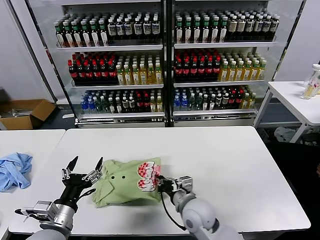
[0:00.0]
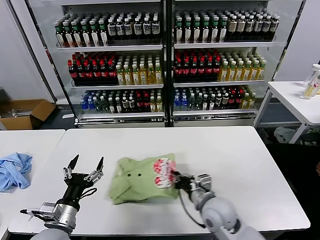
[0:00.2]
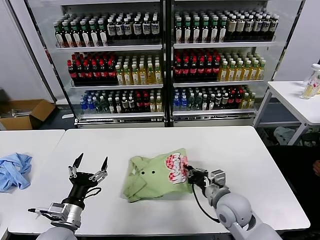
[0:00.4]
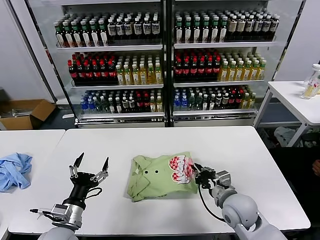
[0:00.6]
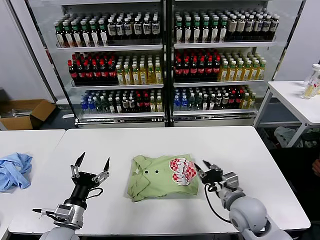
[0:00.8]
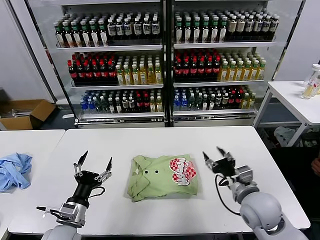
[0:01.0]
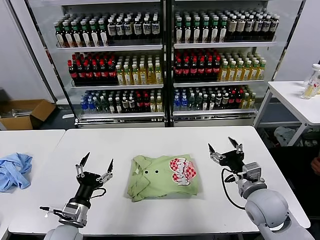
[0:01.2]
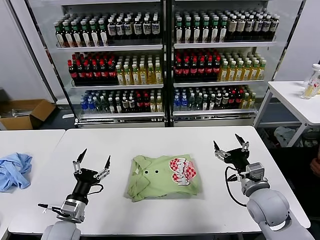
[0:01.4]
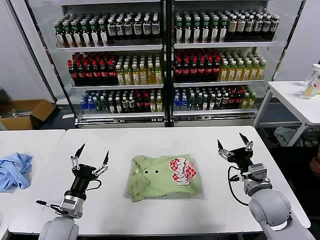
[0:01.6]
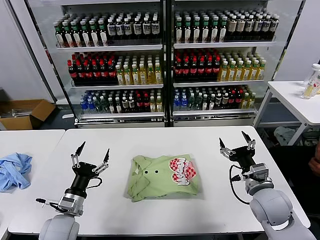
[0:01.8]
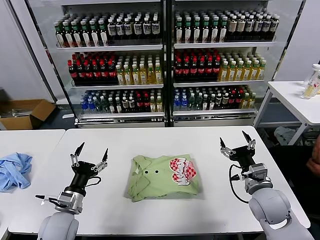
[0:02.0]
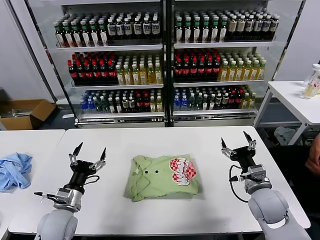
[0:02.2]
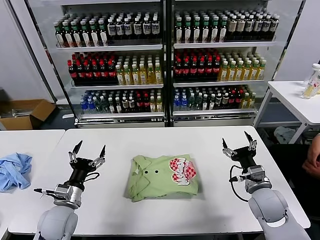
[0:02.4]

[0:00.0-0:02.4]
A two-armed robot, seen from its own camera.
Task of the whole recording: fold and organize the clothes.
0.0 to 1.2 s: The left gripper goes roughly 5 cm downward, while the right gripper heads to the right and upward, covering approximately 20 cm, and opens its fingers.
1.2 to 2.4 s: The right gripper changes place by approximately 5 cm. The left gripper changes place by some 5 cm.

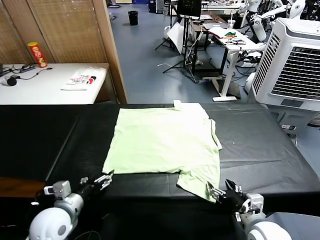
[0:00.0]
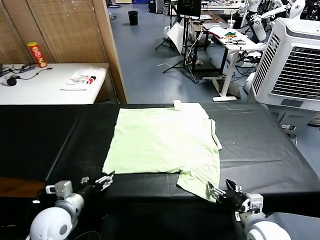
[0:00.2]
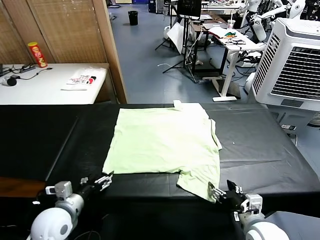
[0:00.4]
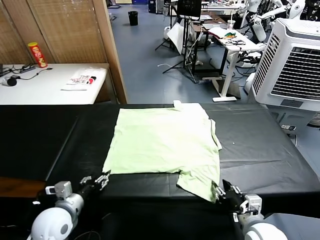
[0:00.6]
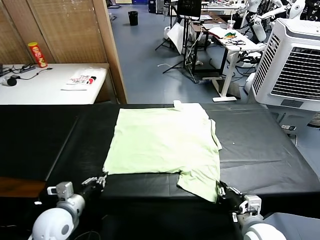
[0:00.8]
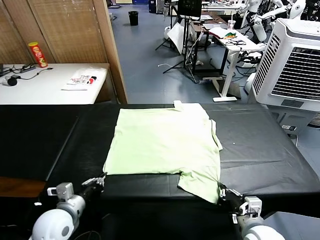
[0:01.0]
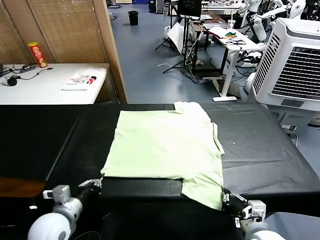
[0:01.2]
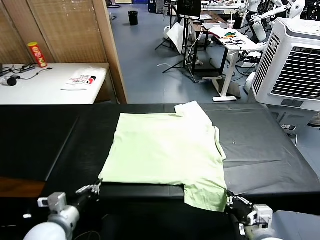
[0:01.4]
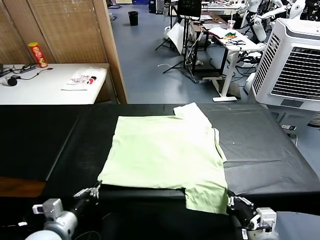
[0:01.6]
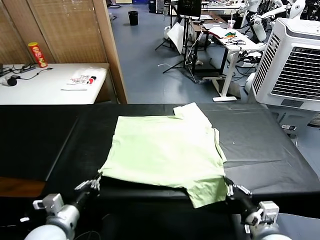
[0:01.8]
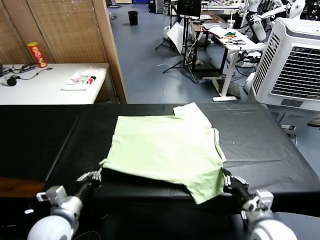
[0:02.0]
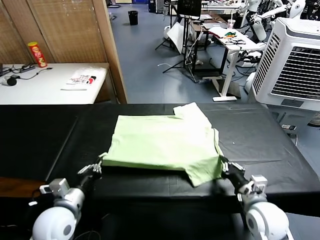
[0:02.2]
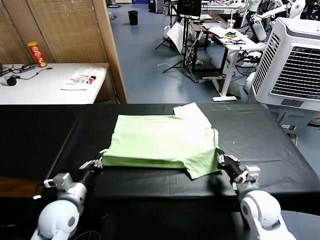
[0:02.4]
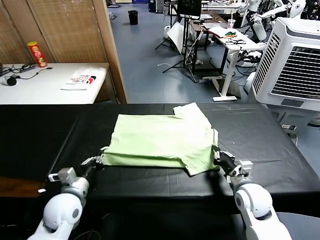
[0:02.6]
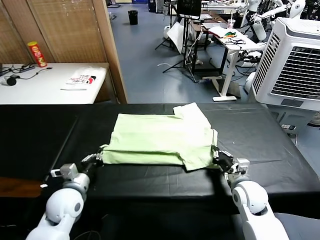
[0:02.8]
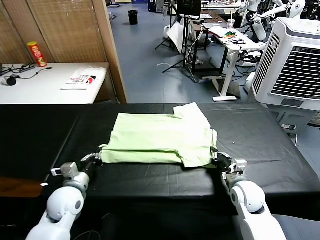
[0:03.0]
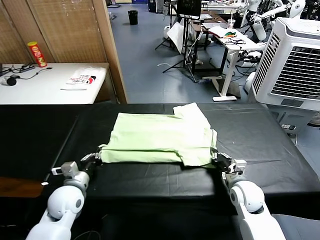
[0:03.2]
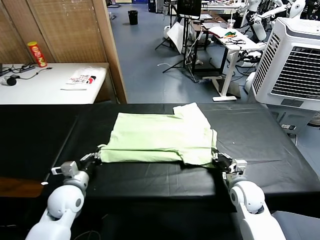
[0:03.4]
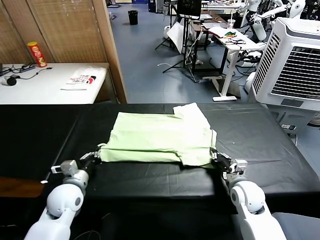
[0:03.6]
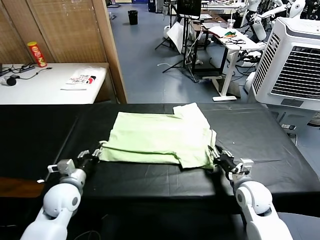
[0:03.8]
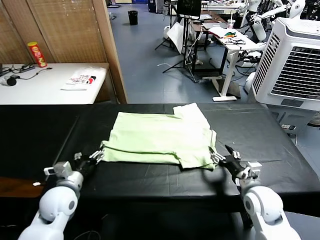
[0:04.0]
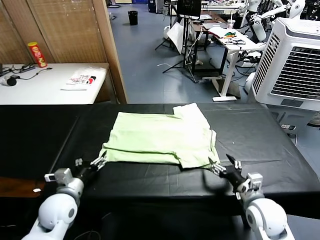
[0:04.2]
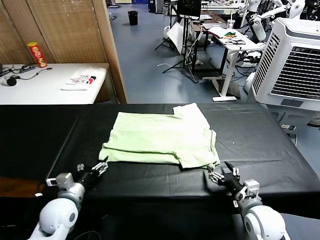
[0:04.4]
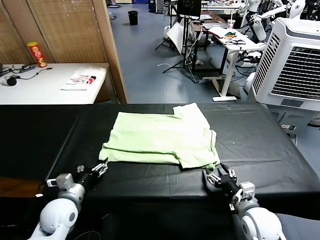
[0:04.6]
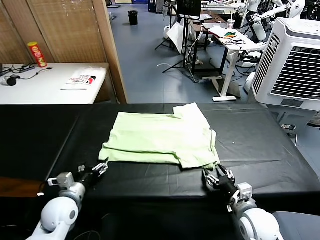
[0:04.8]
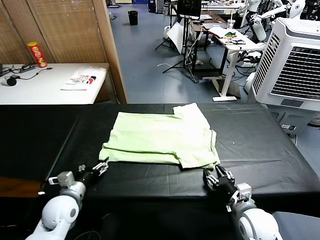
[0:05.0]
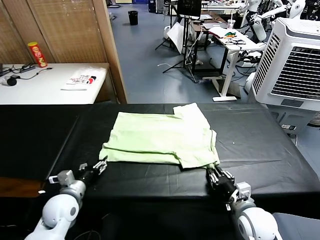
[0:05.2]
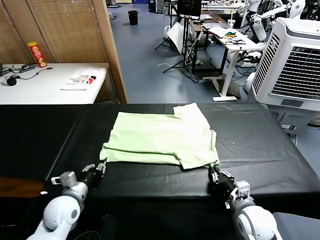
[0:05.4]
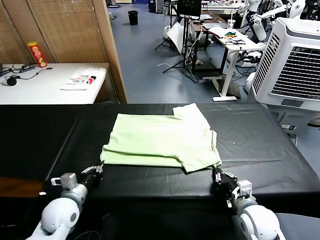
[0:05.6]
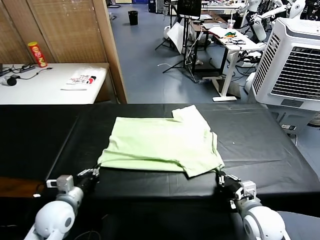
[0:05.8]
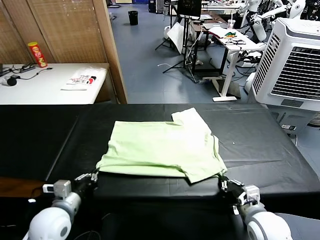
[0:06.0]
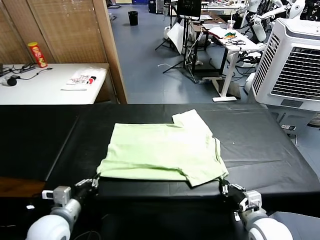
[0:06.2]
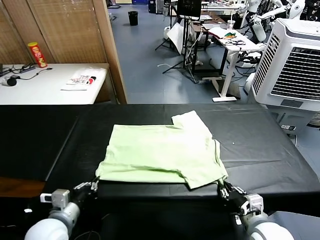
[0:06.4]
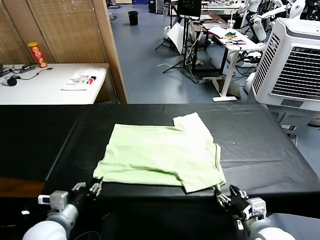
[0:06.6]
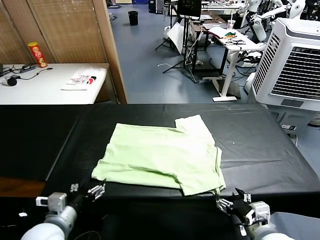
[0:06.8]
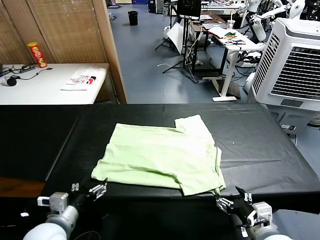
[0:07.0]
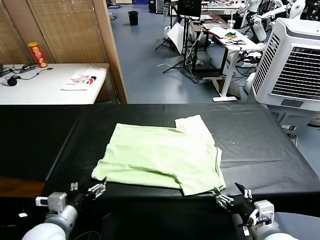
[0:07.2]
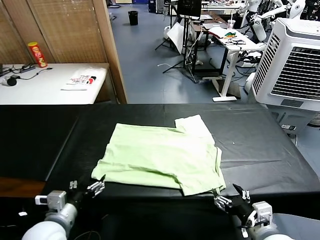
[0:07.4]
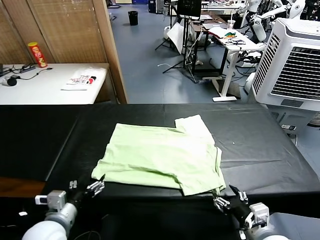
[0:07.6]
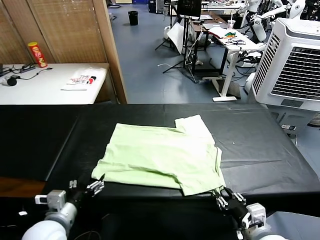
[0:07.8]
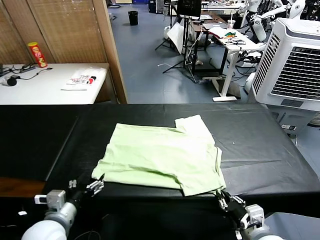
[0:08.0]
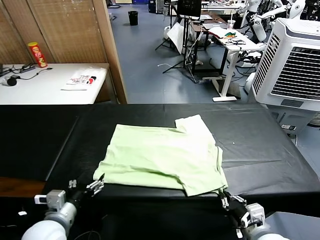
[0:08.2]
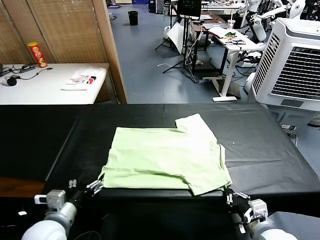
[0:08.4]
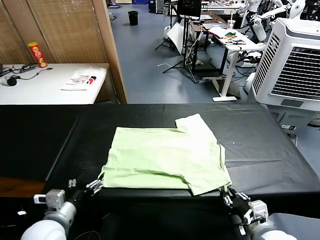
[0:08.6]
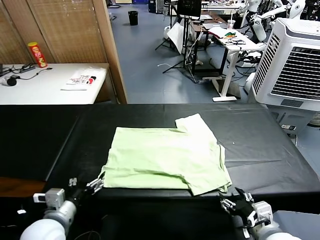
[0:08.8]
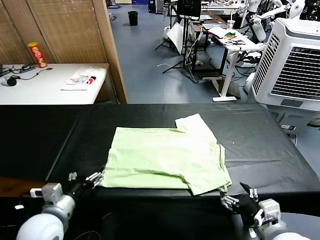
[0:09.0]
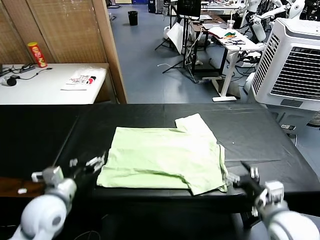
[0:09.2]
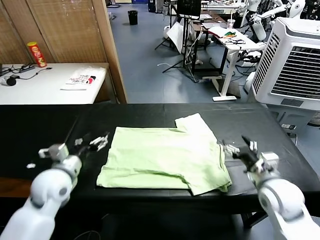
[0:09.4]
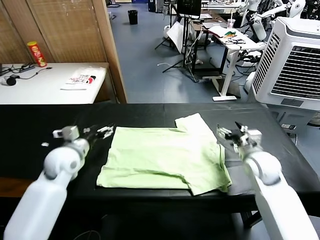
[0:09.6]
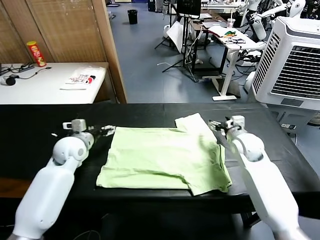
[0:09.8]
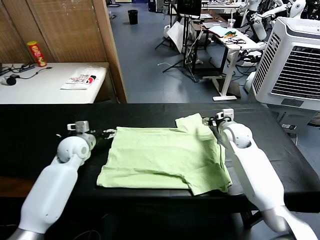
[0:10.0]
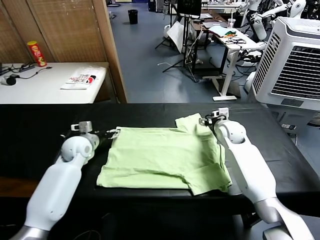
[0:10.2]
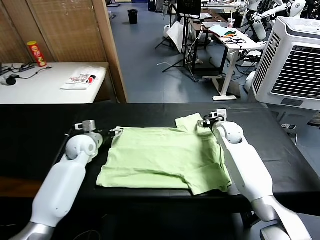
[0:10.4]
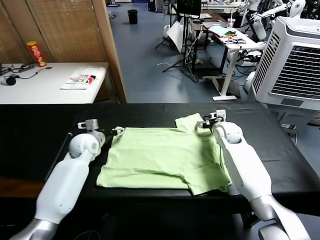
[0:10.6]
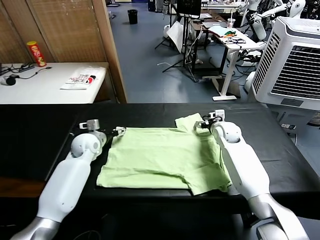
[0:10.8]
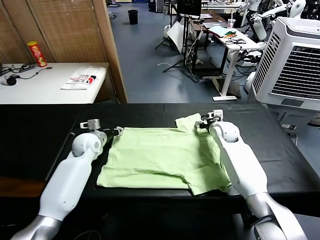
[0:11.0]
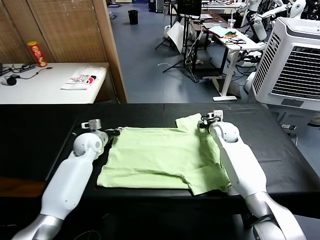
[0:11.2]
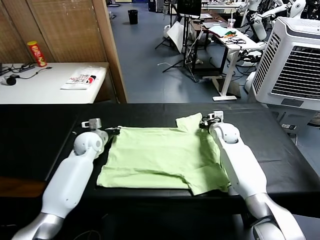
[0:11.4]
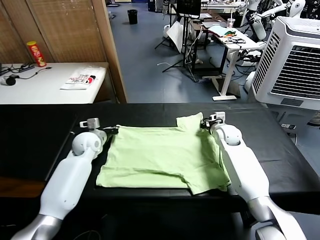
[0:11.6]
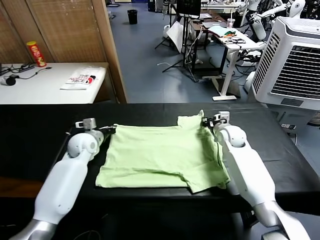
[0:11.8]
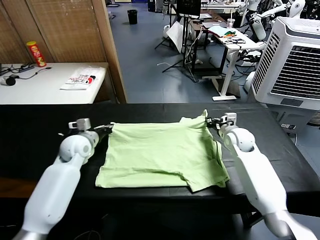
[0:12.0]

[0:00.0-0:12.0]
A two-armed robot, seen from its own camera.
Task of the whole recording: fold and organize the clothes.
Step, 0.0 to 1.0 s: use both grippers simultaneously to clamp the lower edge of the clothing fabric.
Step, 1.2 to 3.8 s: use both grippers to drag the lower edge of the fabric forward and fold it over the upper edge.
Step, 4.2 to 6.8 s: Drag the clothes downward with both gripper.
Step, 7.0 to 11.2 s: use both grippers simultaneously to clamp the upper edge of the clothing fabric.
1.6 to 3.0 s: The right gripper shifts roughly 20 cm forward and downward; the left gripper goes roughly 15 cm forward.
3.0 to 4.4 s: The left gripper opens up. The right gripper is displaced backward by about 10 cm, and opens.
4.4 to 6.0 s: The right gripper closes its fingers. The left gripper changes place by about 5 cm, and closes up.
6.0 to 7.6 s: The right gripper changes place by about 5 cm, and opens up; the left gripper opens its fingers.
7.6 to 9.0 s: The right gripper goes approximately 5 cm upward, and opens.
9.0 to 10.4 s: The grippers both shift forward by about 30 cm.
10.4 to 12.0 s: The left gripper closes up. Meanwhile the right gripper travels backward by some 5 cm, and closes its fingers.

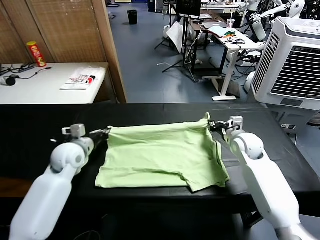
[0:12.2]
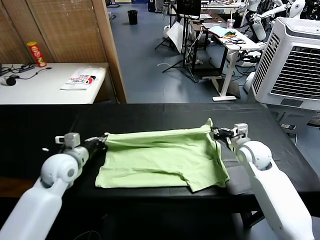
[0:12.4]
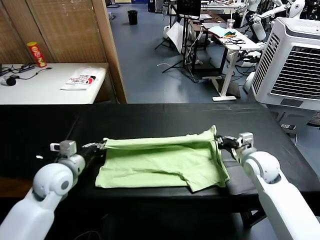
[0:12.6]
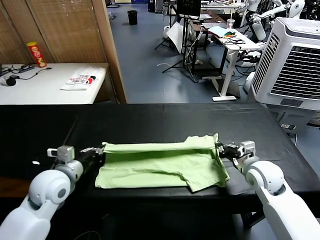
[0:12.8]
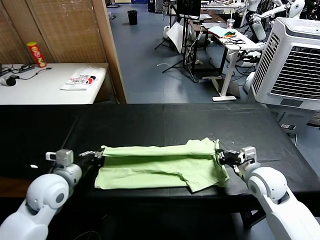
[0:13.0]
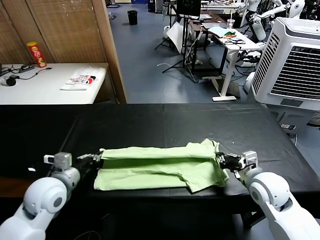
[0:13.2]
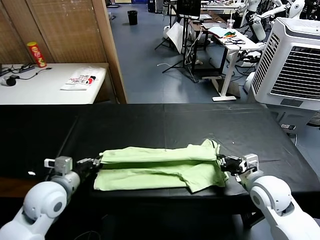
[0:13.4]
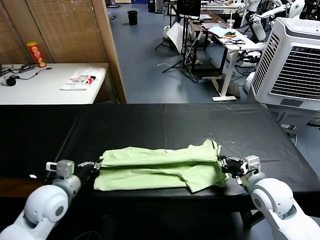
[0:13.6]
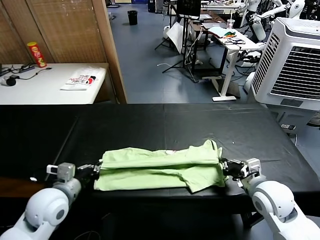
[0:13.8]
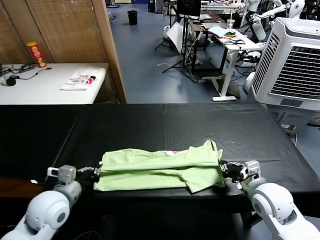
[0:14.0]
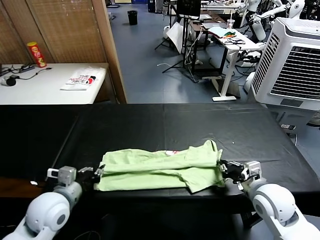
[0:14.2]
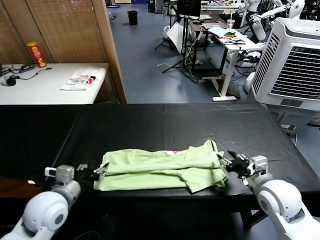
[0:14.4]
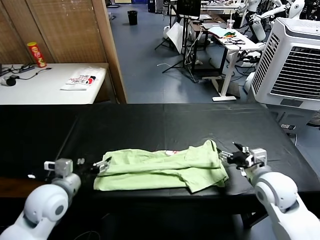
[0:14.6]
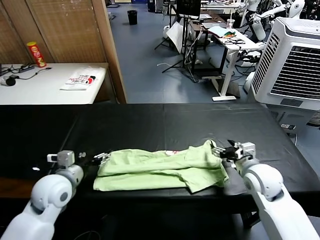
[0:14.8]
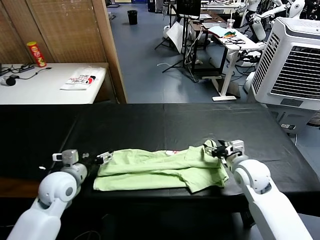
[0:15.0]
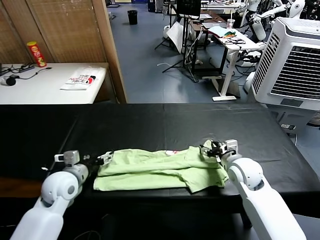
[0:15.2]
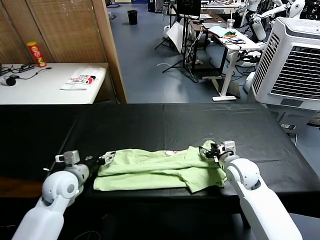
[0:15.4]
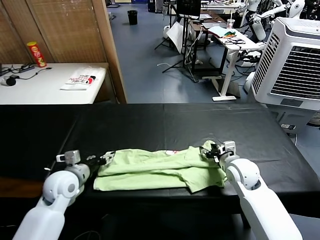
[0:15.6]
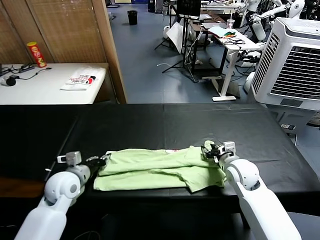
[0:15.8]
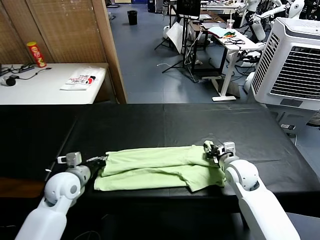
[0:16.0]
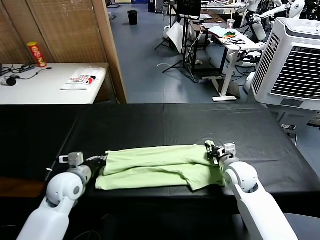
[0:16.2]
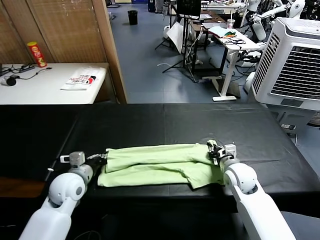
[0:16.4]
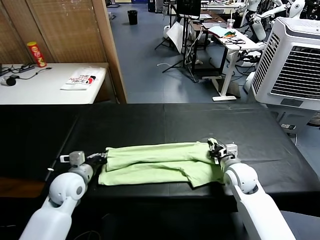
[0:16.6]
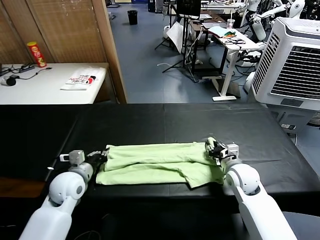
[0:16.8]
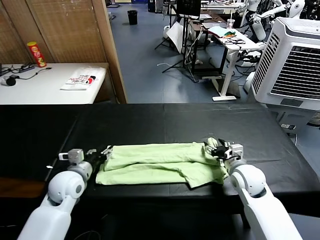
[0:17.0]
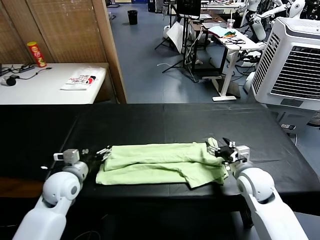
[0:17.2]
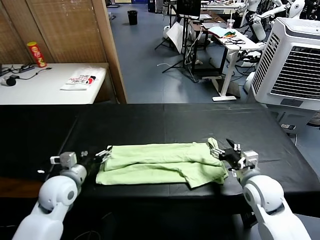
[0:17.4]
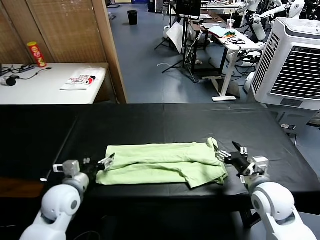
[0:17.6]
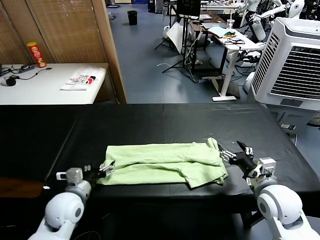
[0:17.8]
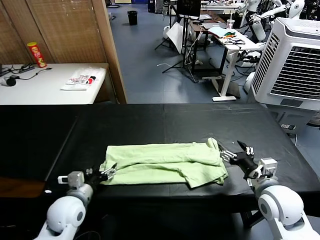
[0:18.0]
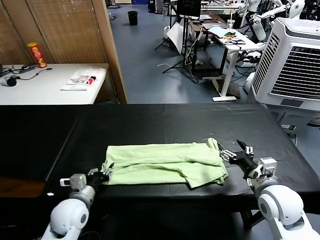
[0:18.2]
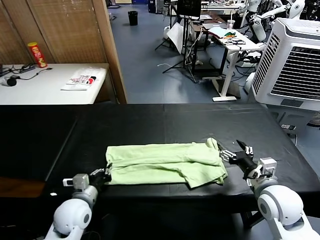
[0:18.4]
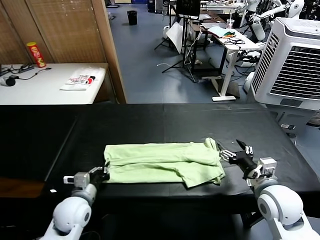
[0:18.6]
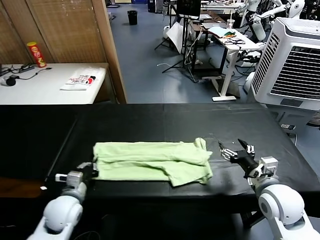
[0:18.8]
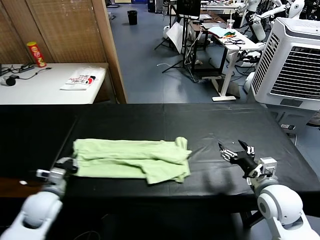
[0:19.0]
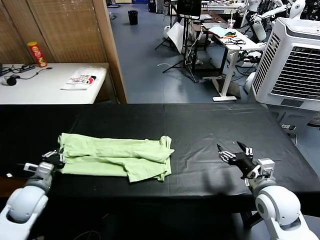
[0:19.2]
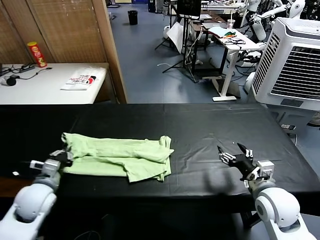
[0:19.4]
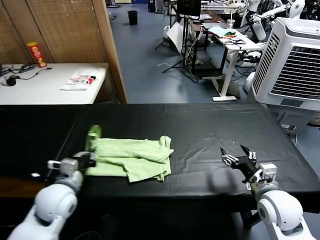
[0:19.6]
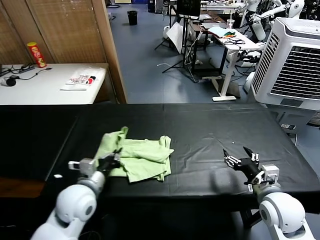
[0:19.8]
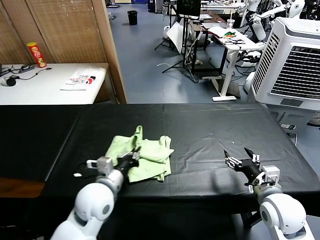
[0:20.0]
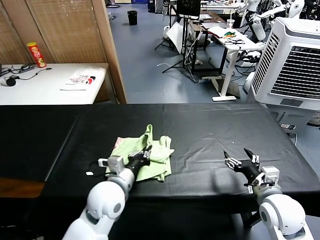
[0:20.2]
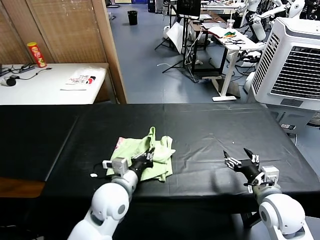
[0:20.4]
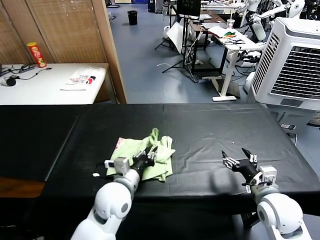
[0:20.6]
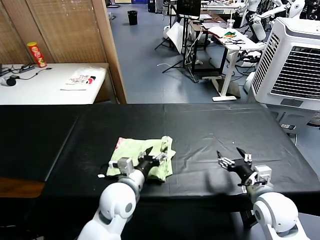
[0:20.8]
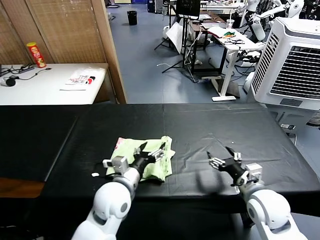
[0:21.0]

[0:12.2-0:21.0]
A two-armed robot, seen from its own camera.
Task of the whole recording: fold and organize the clothes.
Step, 12.2 to 14.4 s: use both grippers to drag the upper edge of the fabric backward and fold it over the lower edge.
Step, 14.6 to 18.4 s: use the left gripper to clamp the left edge of the fabric.
Step, 18.6 to 20.8 s: use the left gripper to drag the left edge of the fabric to the left and folds it over the right edge.
12.2 to 13.6 s: The grippers both shift backward by about 15 cm.
13.6 to 15.2 s: The left gripper moves forward, approximately 5 cm, and opens its fingers; the right gripper travels forward by about 10 cm, and opens its fingers.
15.2 to 16.6 s: The right gripper closes up, while the left gripper closes up.
16.6 to 18.0 s: The left gripper is displaced backward by some 5 cm, and opens up; the right gripper goes some 15 cm backward and upward, and opens its fingers.
18.0 to 19.6 s: The left gripper heads upward, covering roughly 5 cm, travels to the left and back again, roughly 10 cm each way, and closes its fingers.
19.6 to 21.0 s: The left gripper moves to the right, about 15 cm, and opens.
